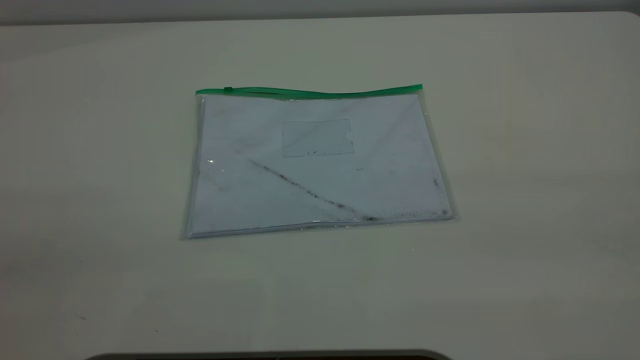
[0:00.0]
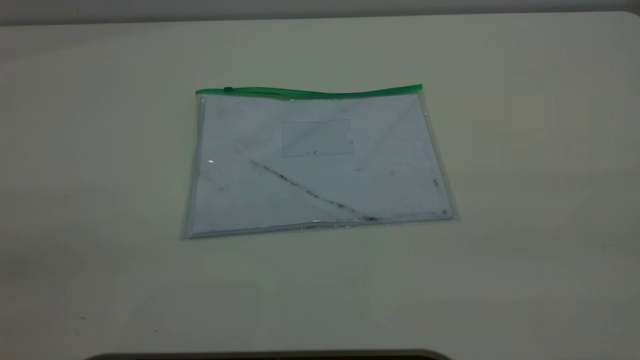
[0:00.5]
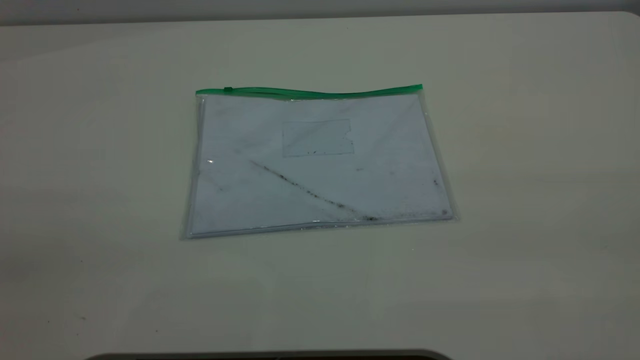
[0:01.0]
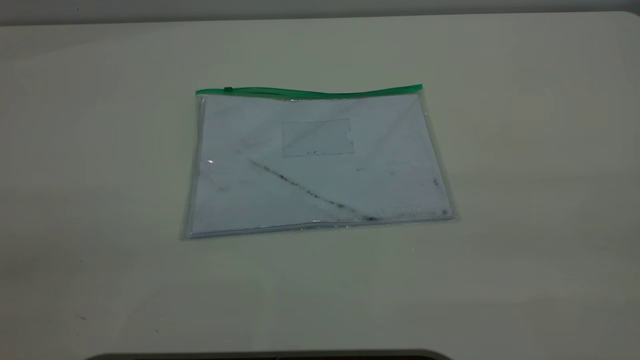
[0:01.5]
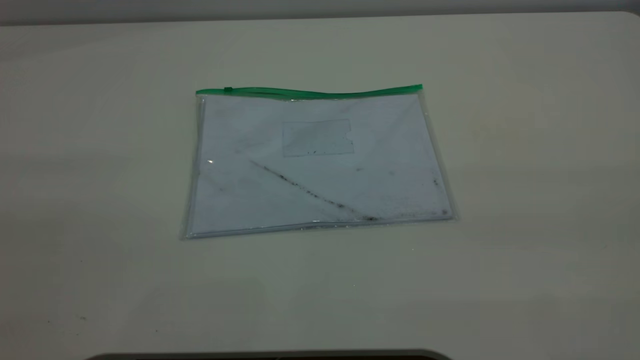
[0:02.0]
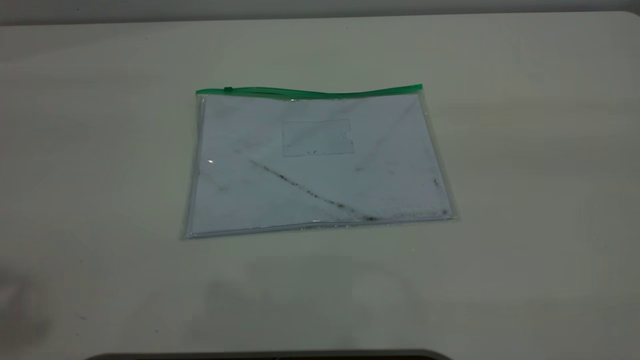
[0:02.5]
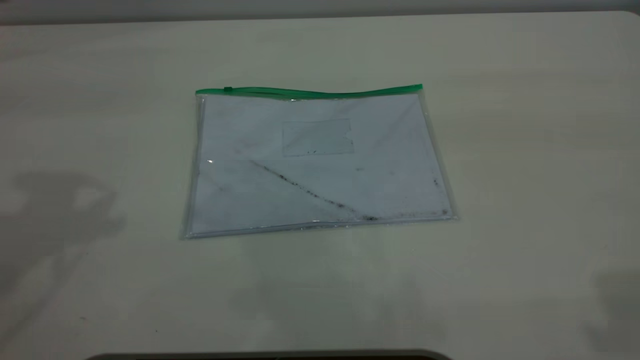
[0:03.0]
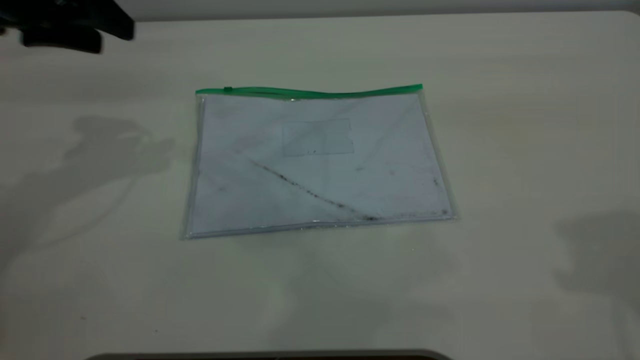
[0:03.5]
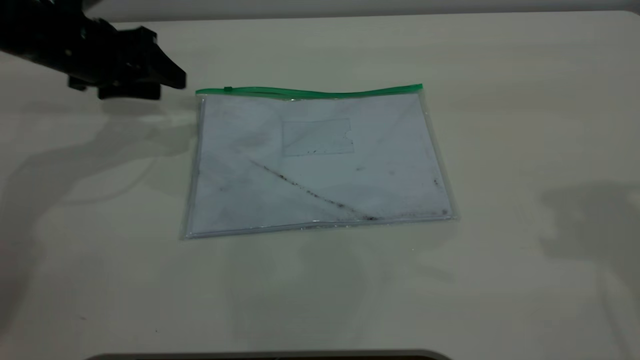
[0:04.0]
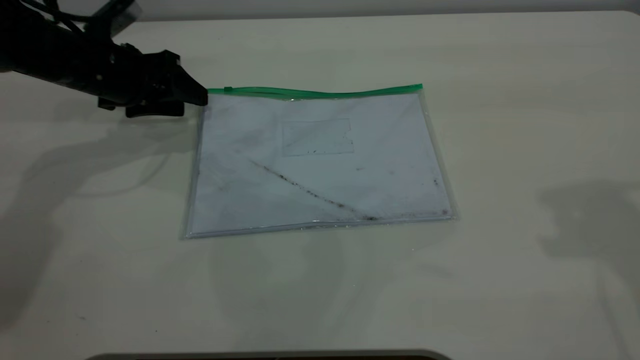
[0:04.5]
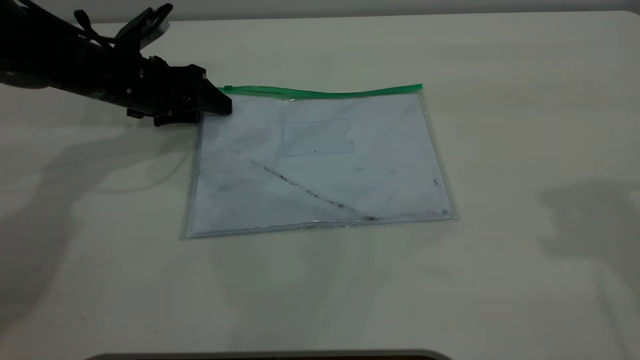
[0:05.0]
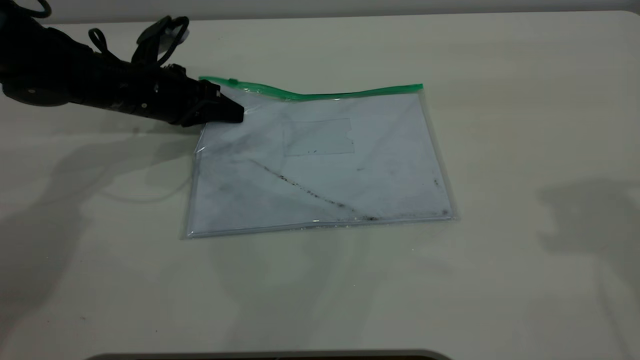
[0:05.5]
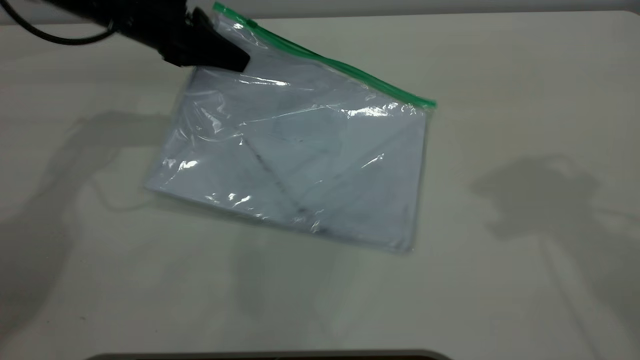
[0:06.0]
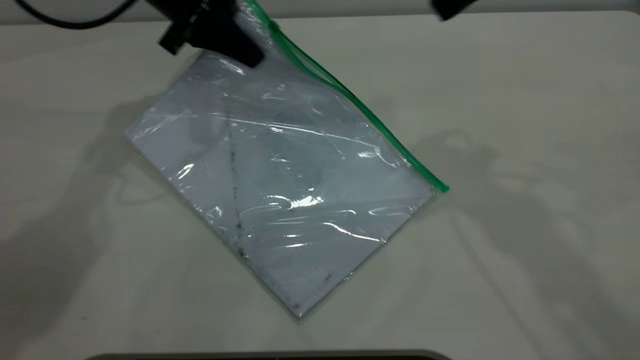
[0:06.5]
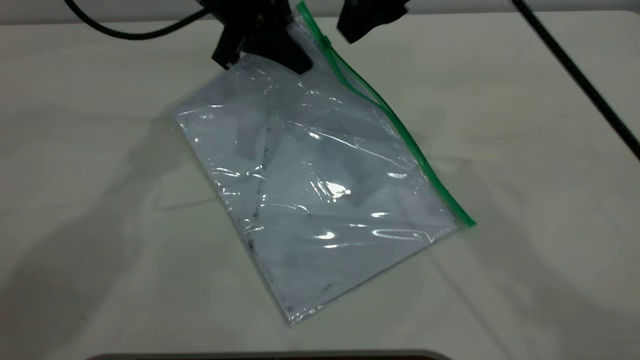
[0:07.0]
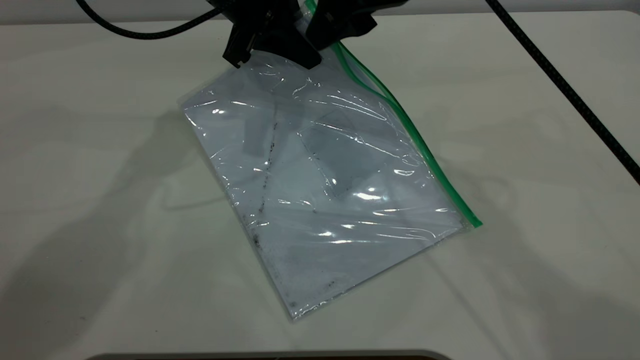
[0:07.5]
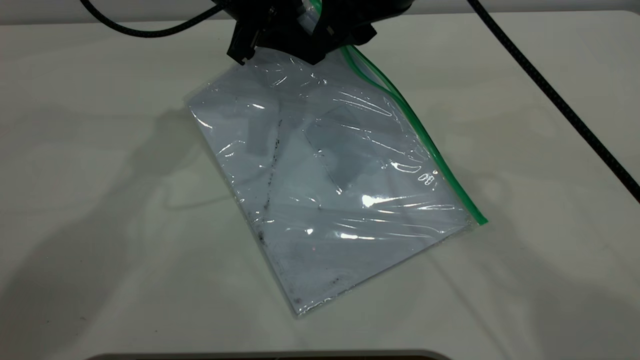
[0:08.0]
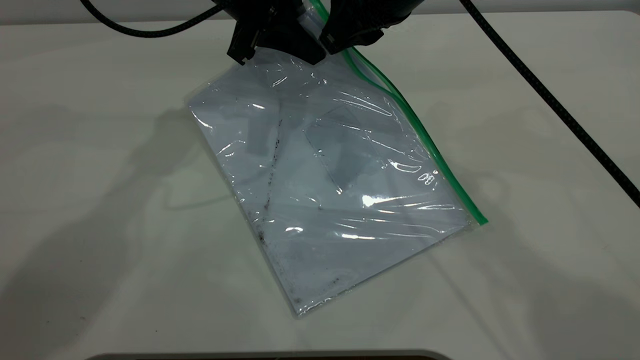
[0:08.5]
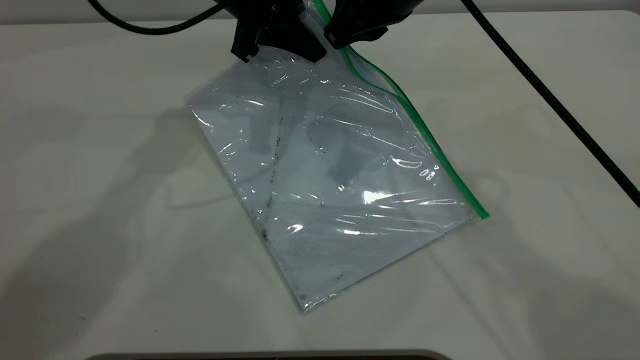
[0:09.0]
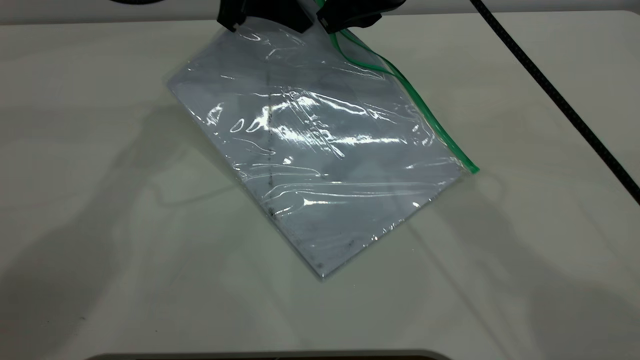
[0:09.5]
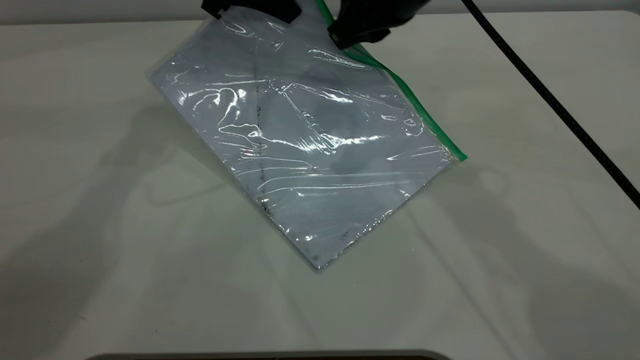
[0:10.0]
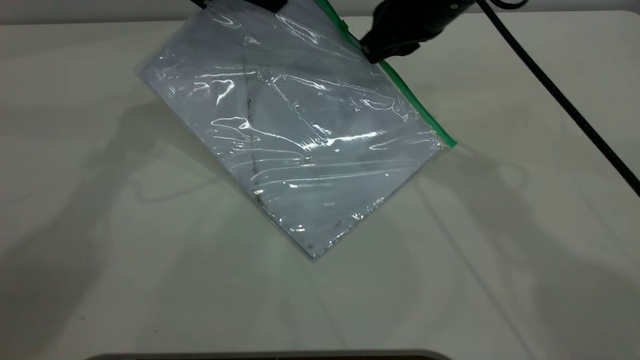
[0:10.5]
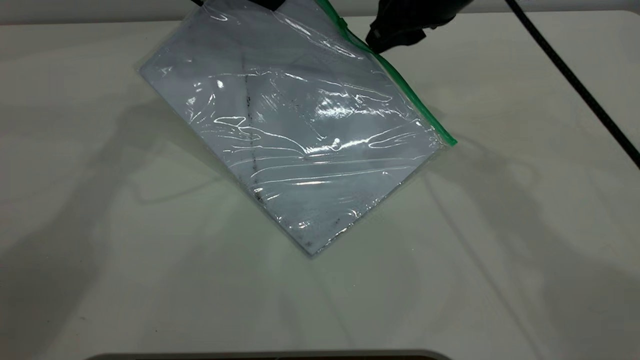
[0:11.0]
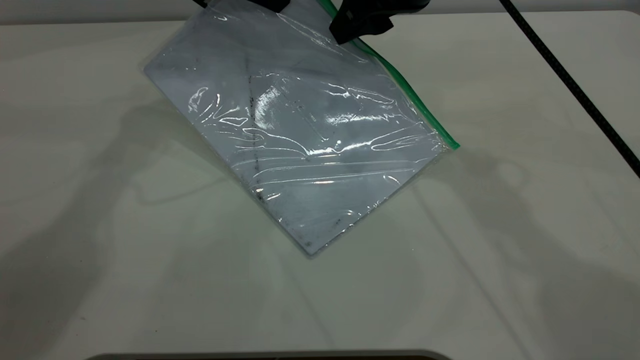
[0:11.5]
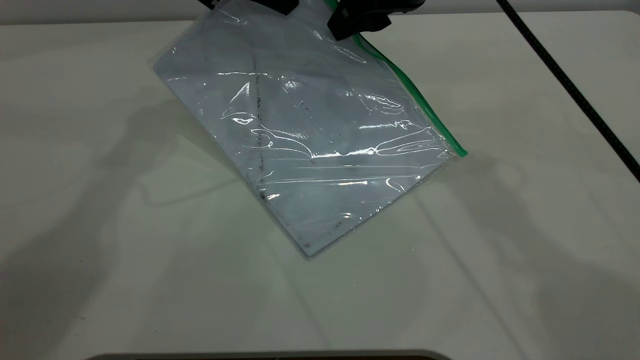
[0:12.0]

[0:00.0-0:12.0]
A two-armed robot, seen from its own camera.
Step, 0:00.0 to 0:05.5: Pick up the transparent plastic bag with the left gripper.
0:02.0 to 0:04.0: The left gripper moves forward and downward, roughly 50 cm.
0:04.0 to 0:06.0: The left gripper moves to the right, about 5 cm, travels downward and back again, some 5 cm each way, and closes, while the right gripper is displaced to the left by about 5 cm.
0:06.0 to 0:08.0: The left gripper moves to the right, some 10 cm. The right gripper goes some 20 cm to the left, downward and forward.
0:08.0 to 0:10.0: The right gripper closes its fingers. Meanwhile the left gripper moves approximately 5 cm.
0:10.0 to 0:12.0: The right gripper opens its fingers.

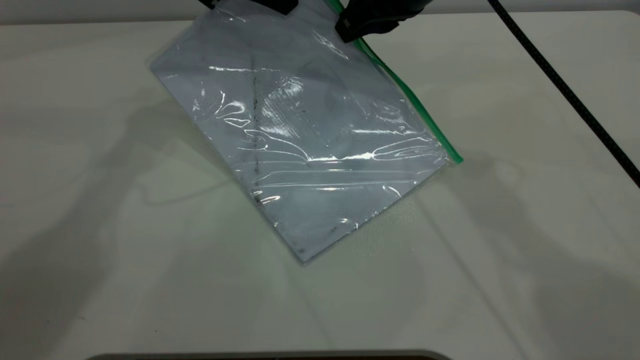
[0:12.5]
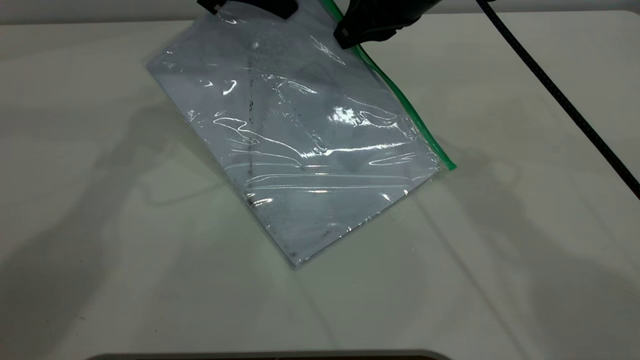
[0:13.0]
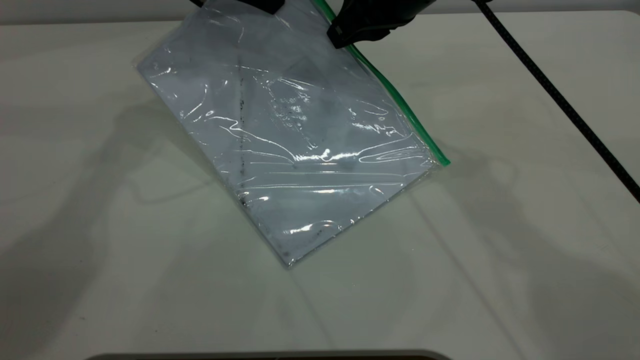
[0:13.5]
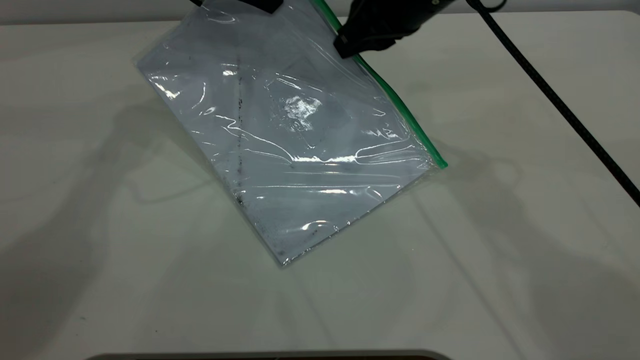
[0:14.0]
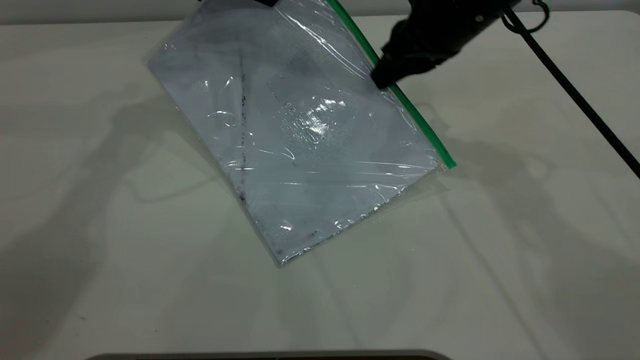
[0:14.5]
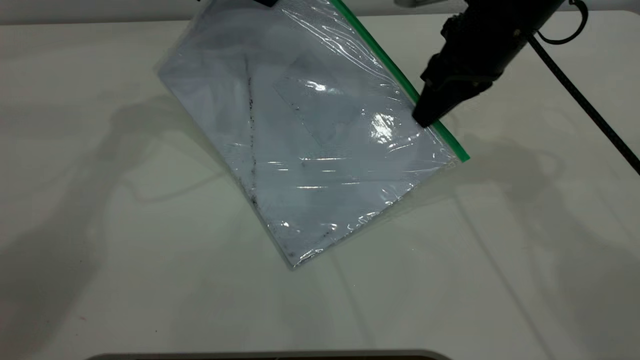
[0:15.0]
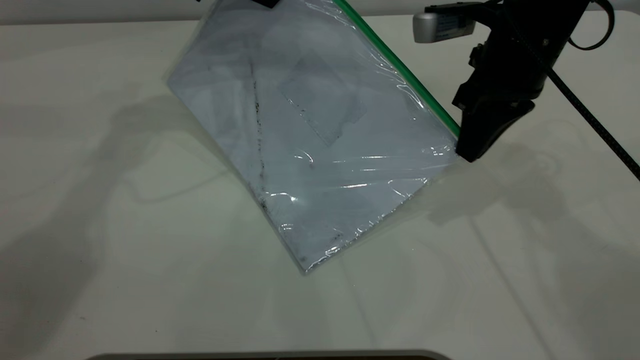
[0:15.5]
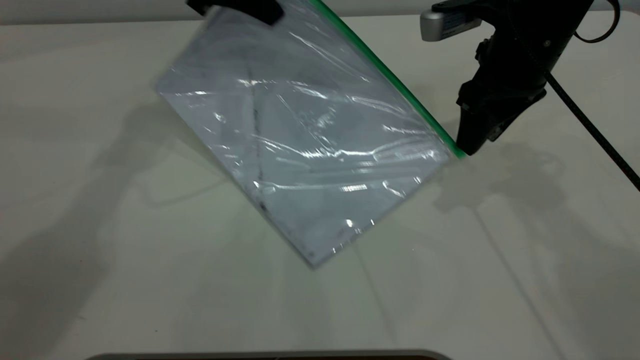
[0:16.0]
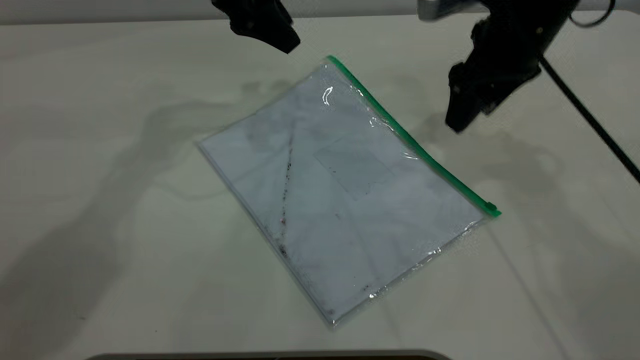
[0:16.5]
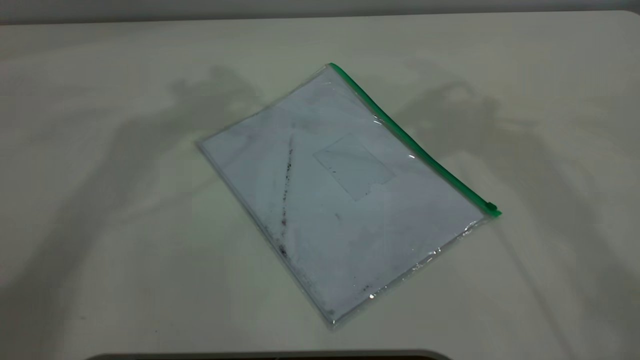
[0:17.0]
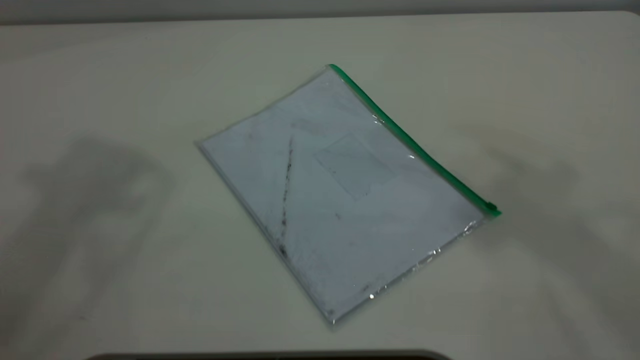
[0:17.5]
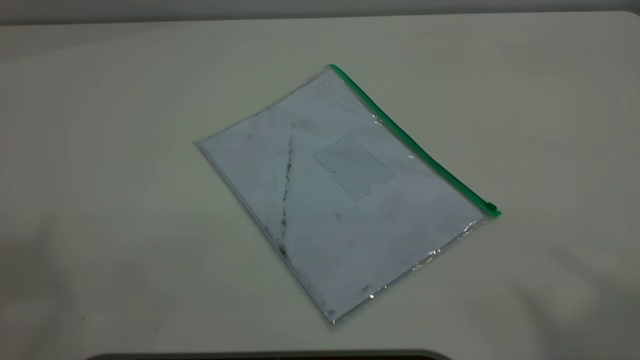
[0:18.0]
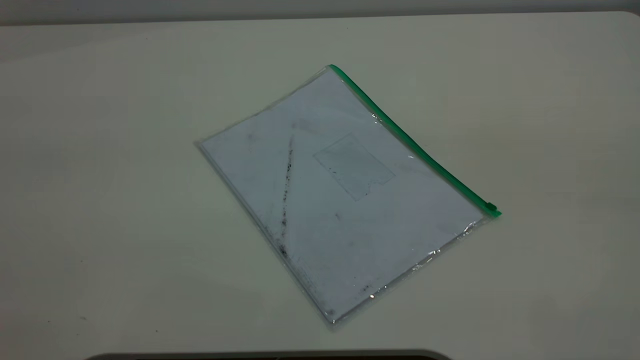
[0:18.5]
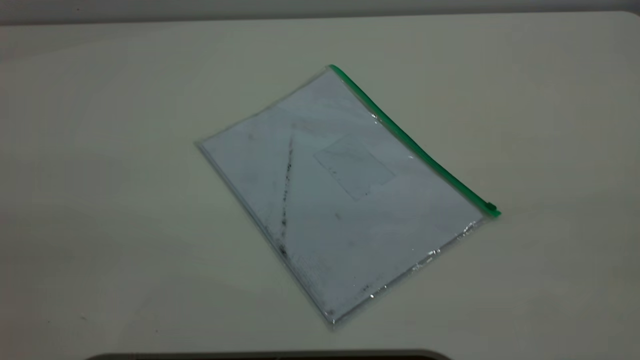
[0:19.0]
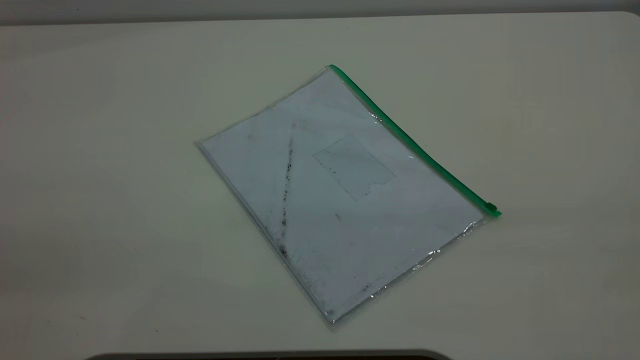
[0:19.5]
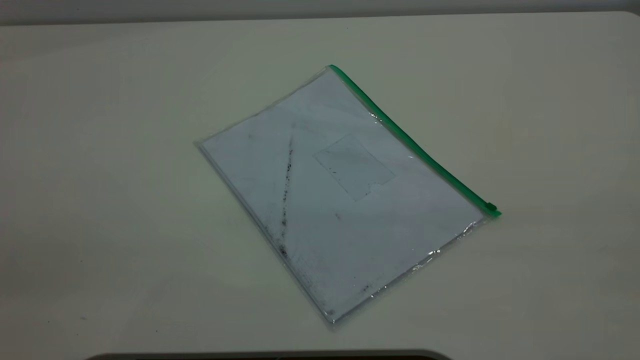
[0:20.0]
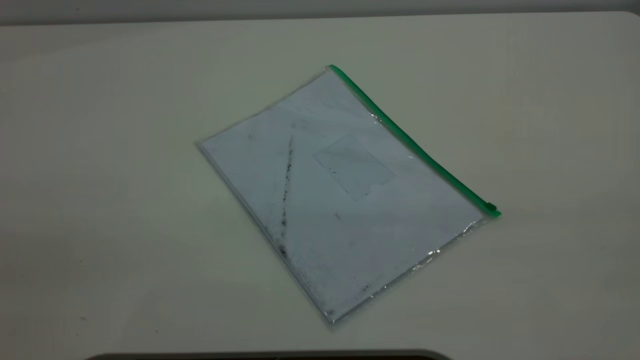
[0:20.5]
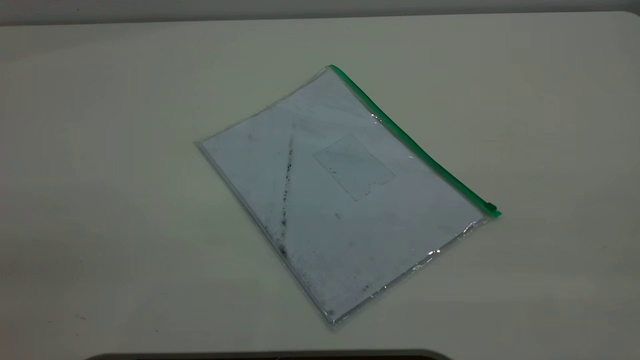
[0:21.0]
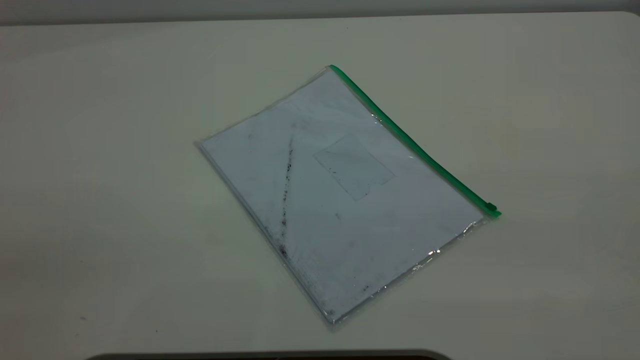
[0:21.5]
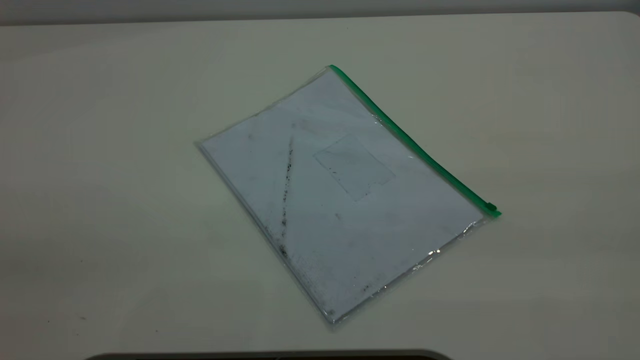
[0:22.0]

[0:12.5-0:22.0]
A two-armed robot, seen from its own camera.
Step, 0:12.5 to 0:15.5: Pulling up the zipper on the transparent plastic bag with the right gripper to close it.
Step, 0:16.0 to 0:16.5: Place the transparent plastic bag.
0:12.5 to 0:14.5: The right gripper shifts by about 5 cm.
0:14.5 to 0:16.5: The right gripper opens up; the left gripper opens up.
0:16.5 to 0:18.0: Both grippers travel together upward and backward, some 50 cm.
